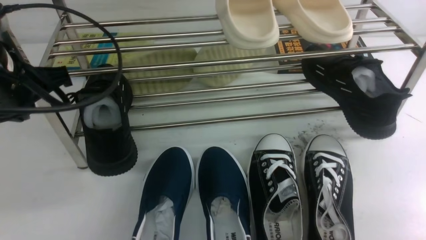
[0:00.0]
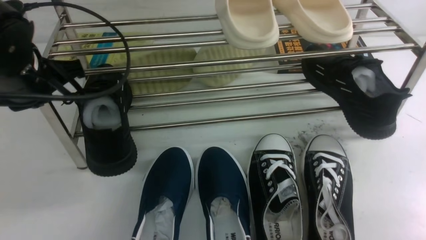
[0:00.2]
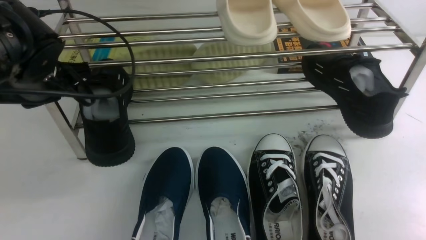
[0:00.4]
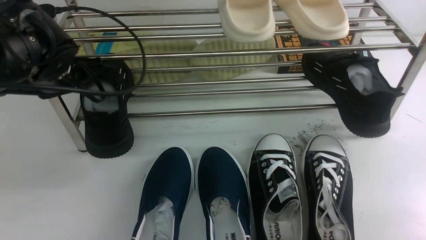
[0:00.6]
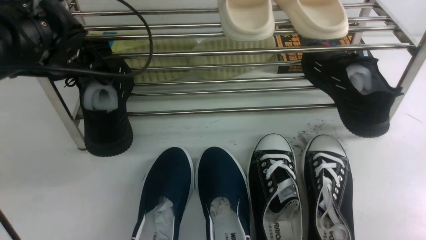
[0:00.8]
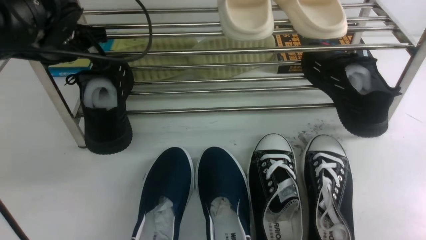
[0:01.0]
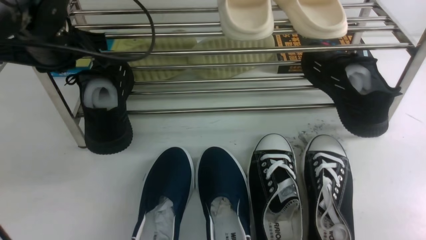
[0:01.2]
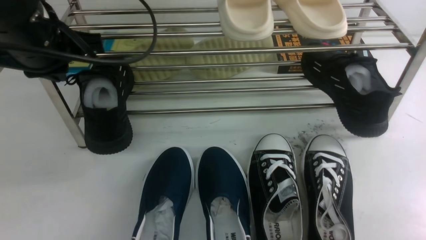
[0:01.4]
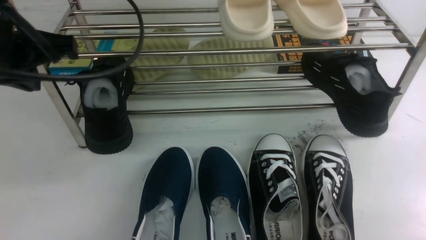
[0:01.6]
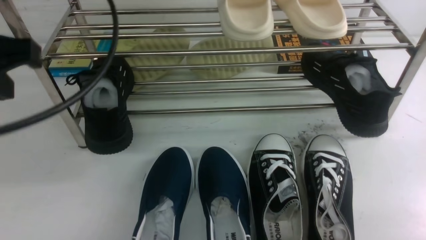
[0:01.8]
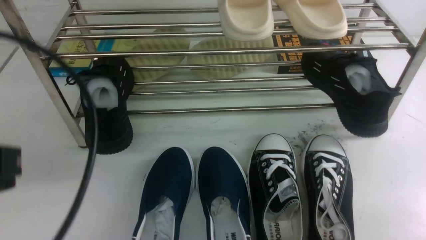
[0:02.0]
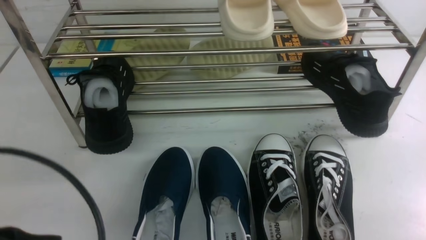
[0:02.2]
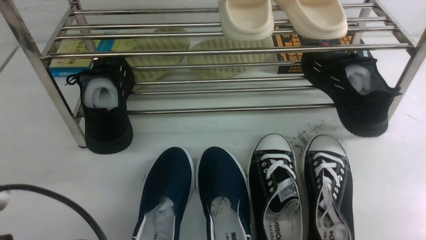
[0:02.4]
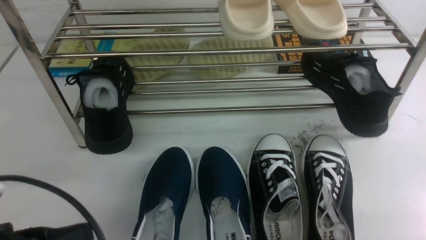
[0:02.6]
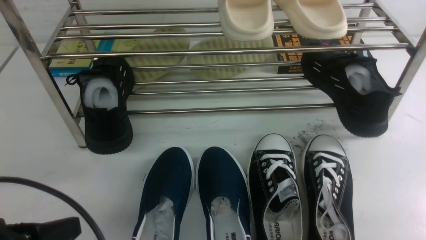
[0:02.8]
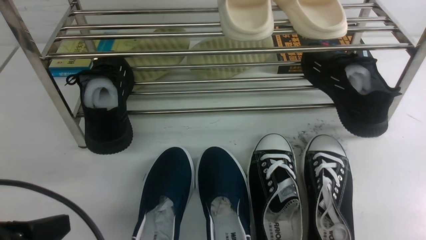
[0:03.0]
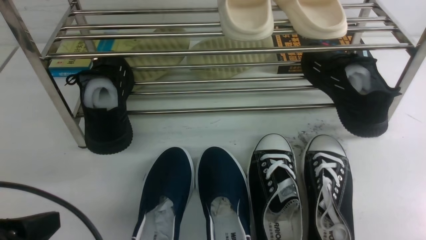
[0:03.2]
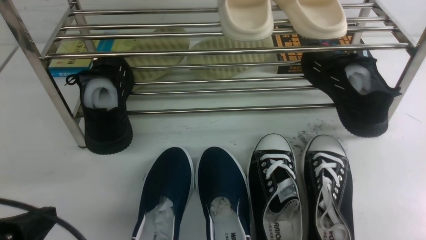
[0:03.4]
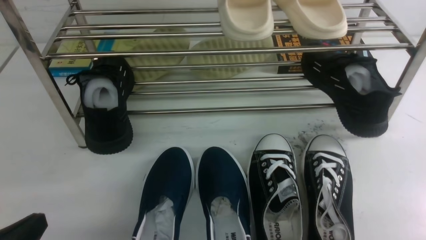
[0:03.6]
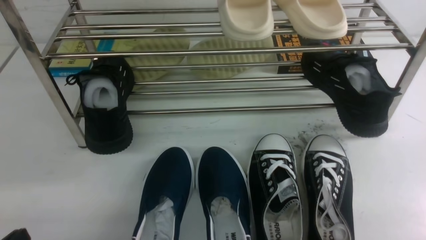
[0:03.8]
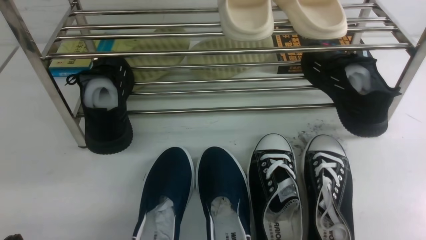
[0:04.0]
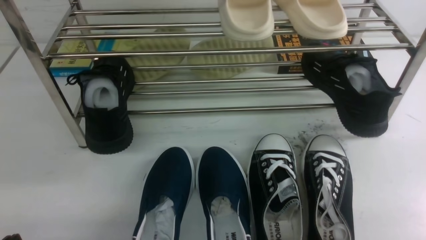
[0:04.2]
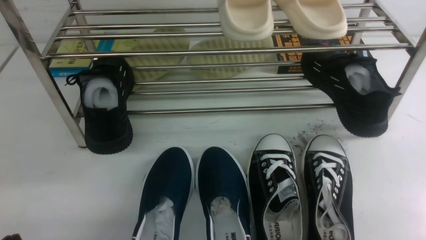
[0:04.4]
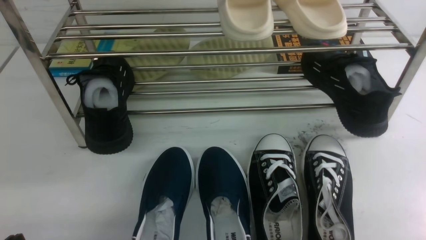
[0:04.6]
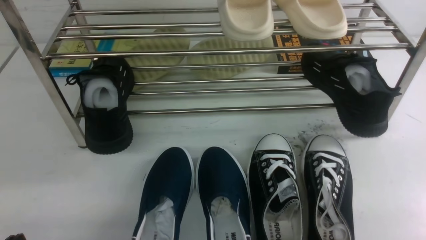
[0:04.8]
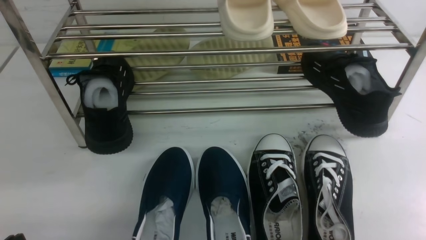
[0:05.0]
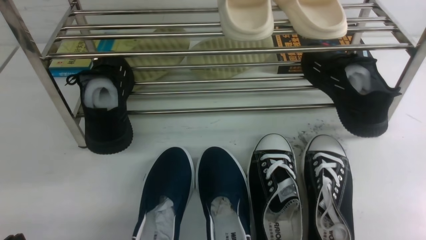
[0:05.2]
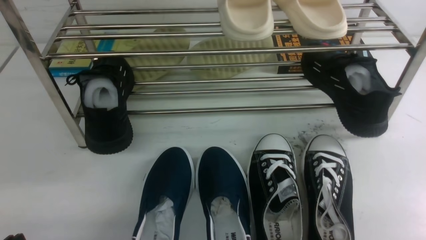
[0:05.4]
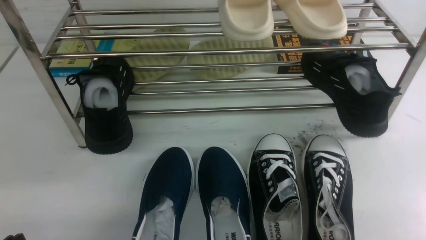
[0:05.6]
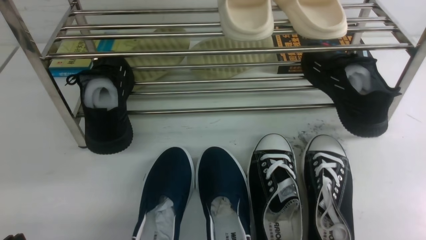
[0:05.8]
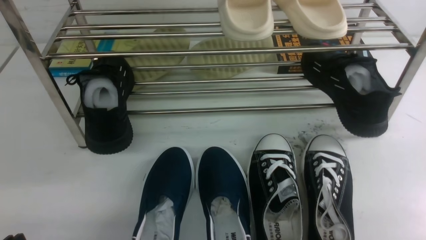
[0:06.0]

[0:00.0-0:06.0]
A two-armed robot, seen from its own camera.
0:00.0 to 0:01.6: The left gripper moves upward, about 5 cm, and goes forward and returns, about 10 cm each way.
0:01.6 to 0:03.0: The left gripper heads backward and downward, covering some 20 cm.
0:03.0 to 0:04.4: The left gripper moves downward, about 10 cm.
0:04.4 to 0:06.0: The two grippers keep their place.

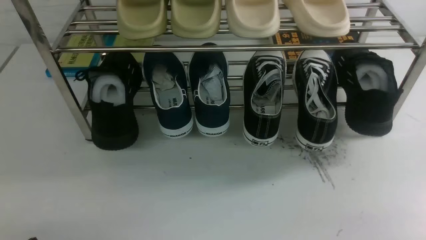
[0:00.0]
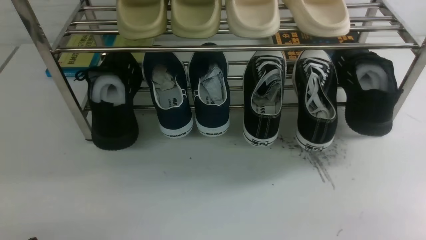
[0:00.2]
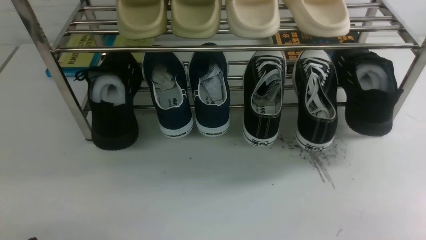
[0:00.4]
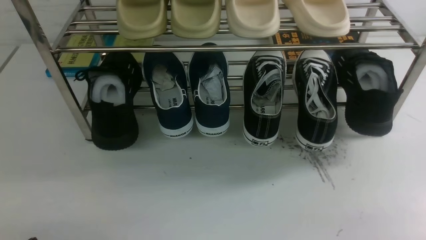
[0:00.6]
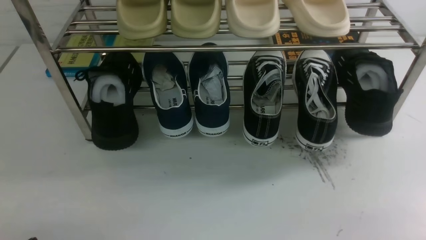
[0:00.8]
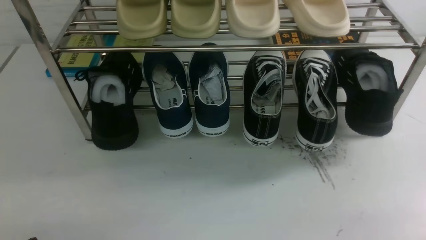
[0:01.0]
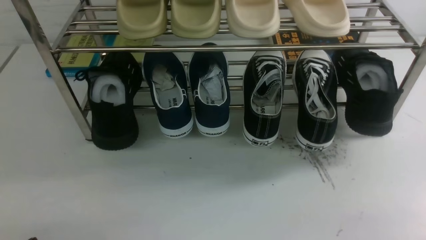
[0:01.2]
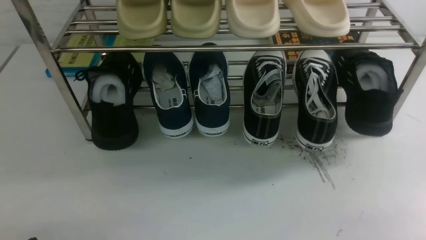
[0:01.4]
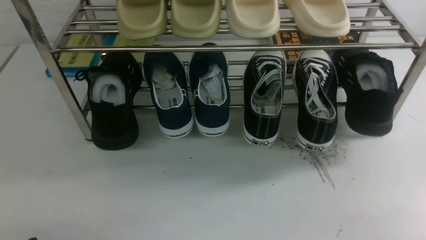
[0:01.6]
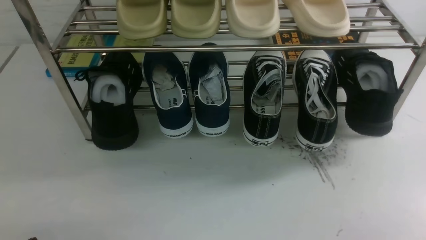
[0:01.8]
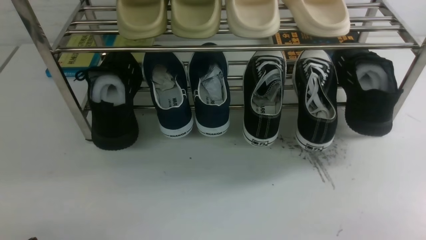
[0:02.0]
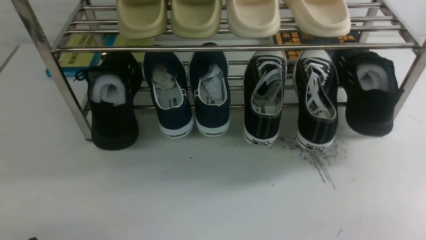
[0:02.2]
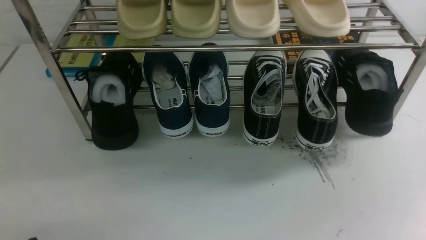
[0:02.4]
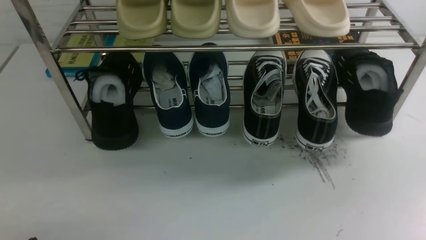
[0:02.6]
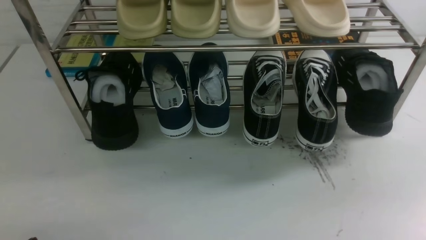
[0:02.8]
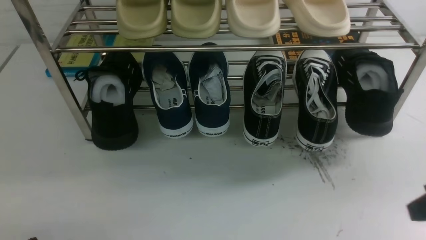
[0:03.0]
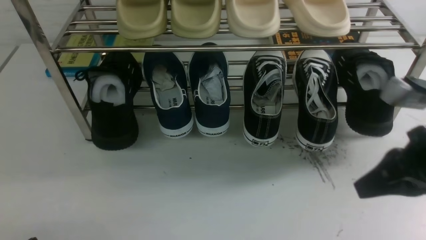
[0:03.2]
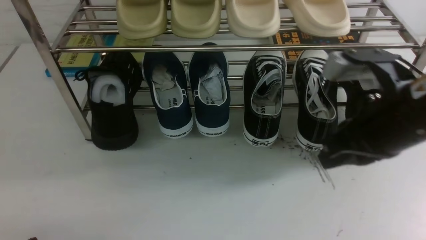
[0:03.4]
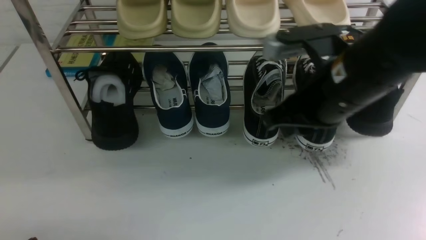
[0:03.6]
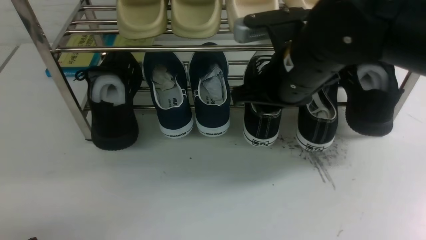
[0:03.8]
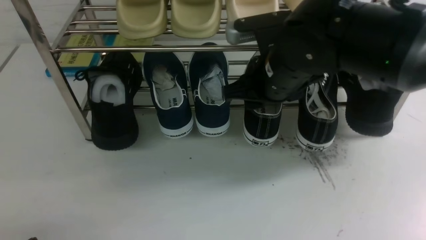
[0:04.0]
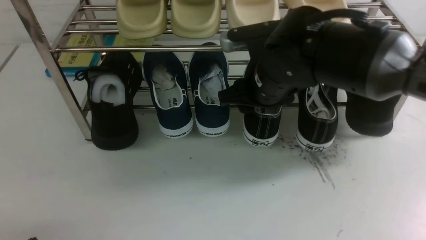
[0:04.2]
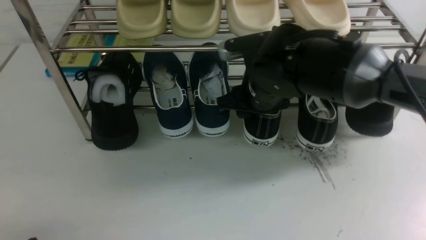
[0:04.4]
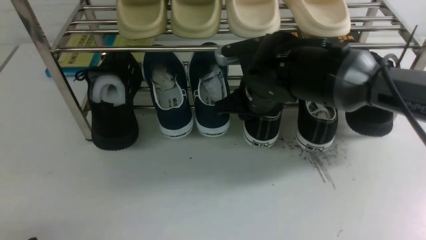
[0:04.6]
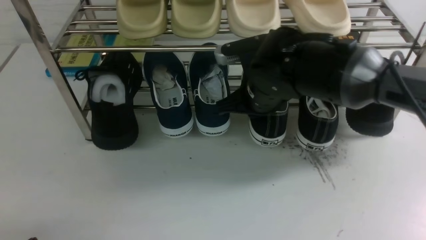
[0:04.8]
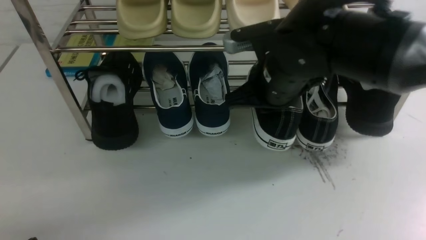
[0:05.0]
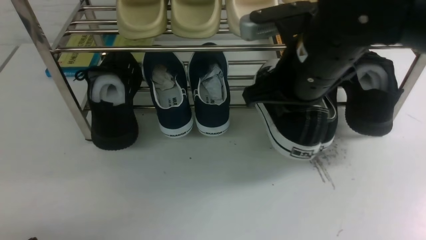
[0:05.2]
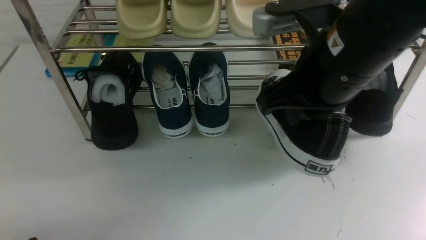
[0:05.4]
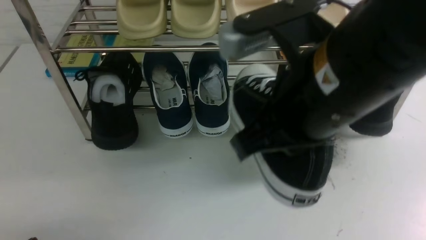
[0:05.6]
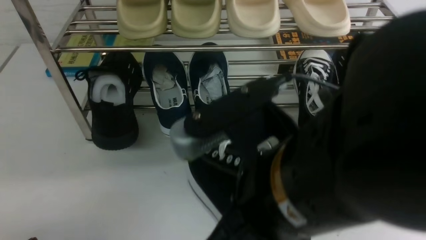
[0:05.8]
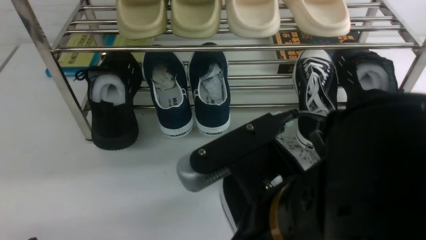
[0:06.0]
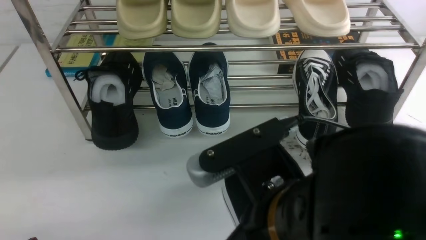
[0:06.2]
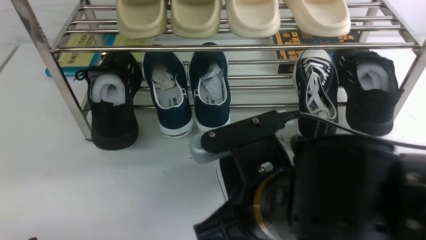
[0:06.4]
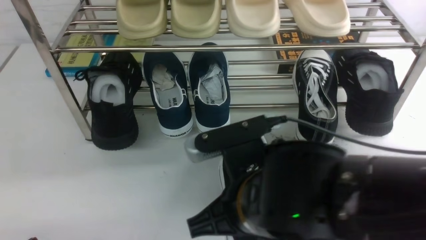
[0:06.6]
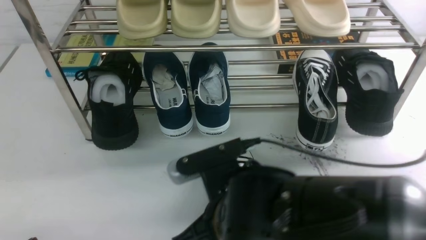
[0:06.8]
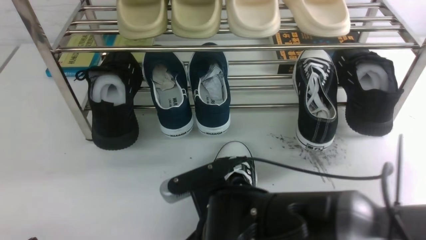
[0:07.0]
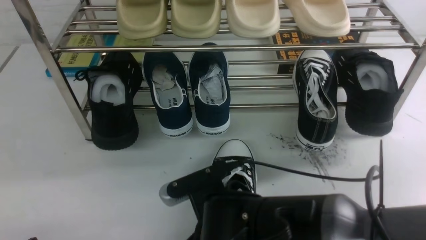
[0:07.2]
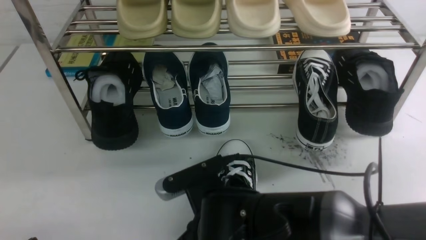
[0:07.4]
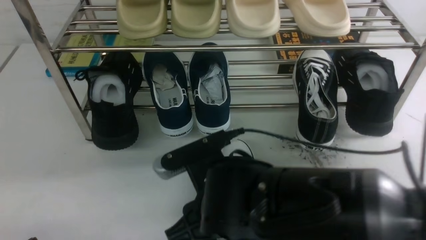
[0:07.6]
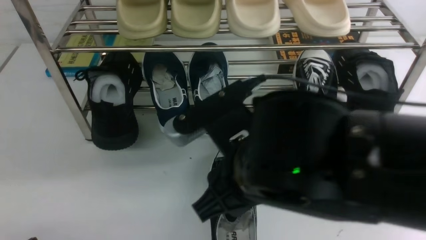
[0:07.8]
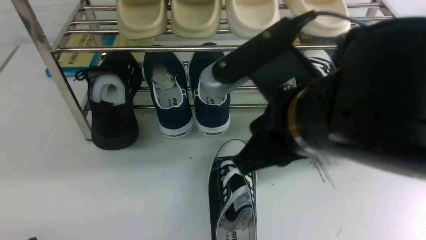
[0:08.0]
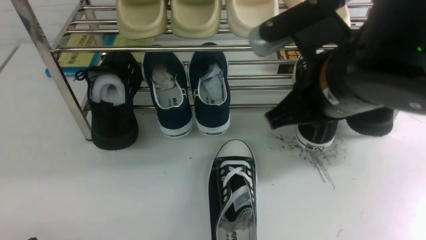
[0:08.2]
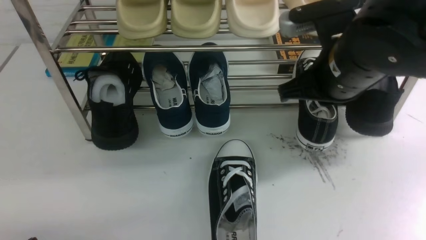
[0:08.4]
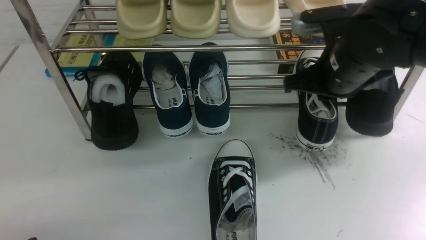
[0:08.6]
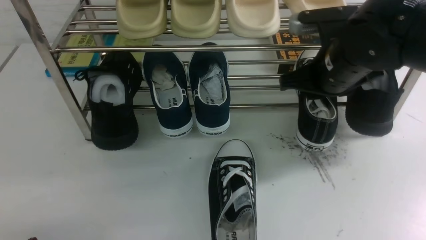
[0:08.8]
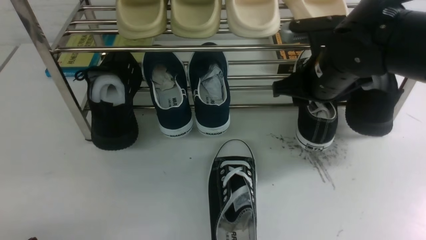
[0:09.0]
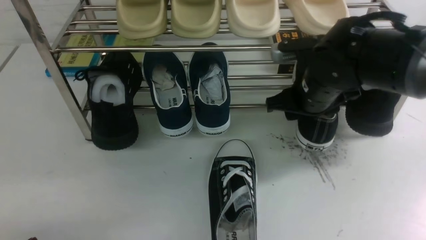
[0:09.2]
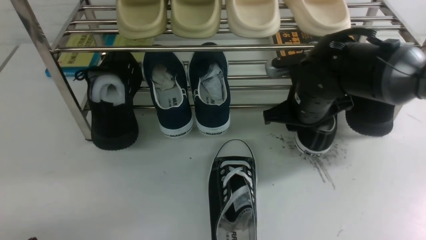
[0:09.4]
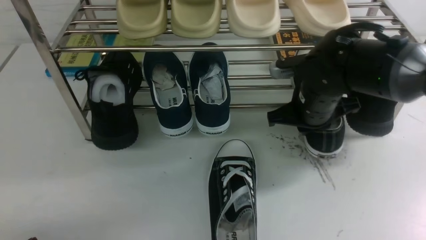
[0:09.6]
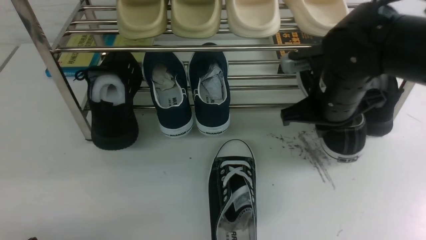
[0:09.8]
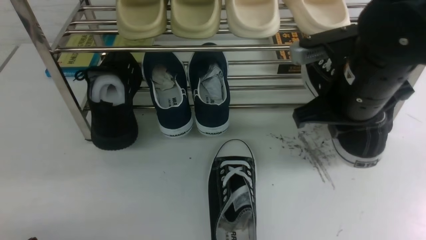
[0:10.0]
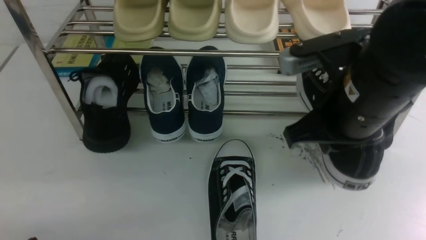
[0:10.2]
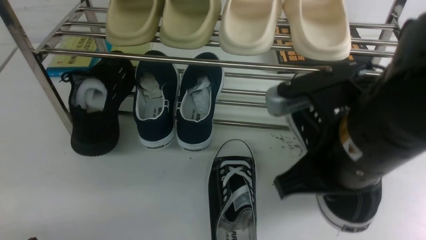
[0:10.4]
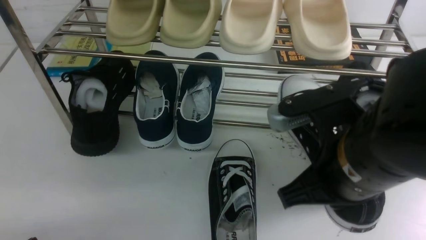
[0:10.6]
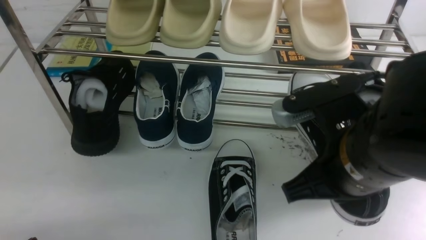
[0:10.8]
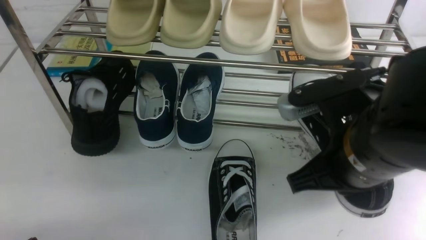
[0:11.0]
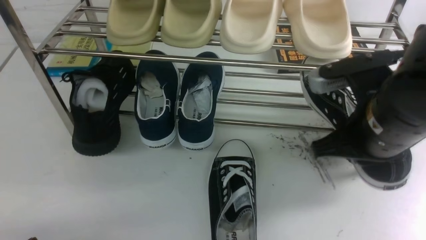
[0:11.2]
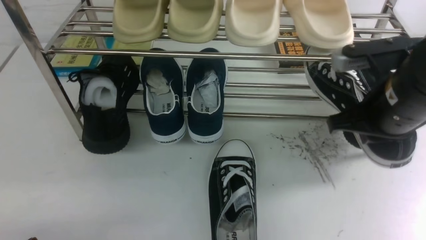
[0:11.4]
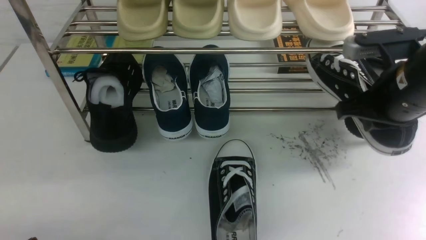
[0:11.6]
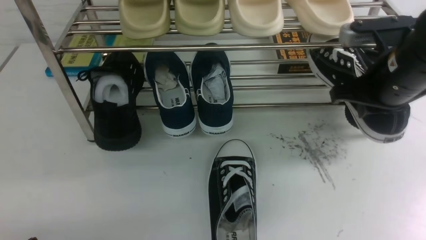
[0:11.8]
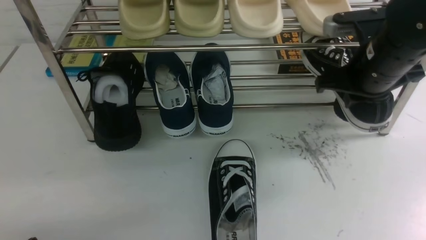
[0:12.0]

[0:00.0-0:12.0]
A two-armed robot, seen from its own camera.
Step, 0:00.0 to 0:05.0: use the right arm to clamp a shoe in the middle of the shoe rack.
Step, 0:05.2 to 0:07.8: use the right arm to take out the clamped shoe from the shoe rack and put it down.
Step, 0:08.0 to 0:09.8: use the right arm to clamp a shoe on the right side of the shoe rack.
0:03.0 to 0:04.4: The right gripper moves to the left and forward, roughly 30 cm, and opens.
0:04.4 to 0:06.0: The right gripper moves backward, approximately 25 cm, and closes.
0:06.0 to 0:07.6: The right gripper is displaced downward and forward by approximately 10 cm, and opens up.
0:07.6 to 0:09.0: The right gripper shifts some 25 cm forward and to the right, and closes and opens again.
0:09.0 to 0:10.4: The right gripper heads backward, covering roughly 15 cm, and closes up.
0:10.4 to 0:12.0: The right gripper shifts about 15 cm forward and to the right.
